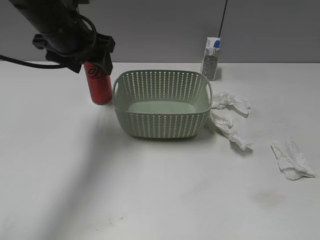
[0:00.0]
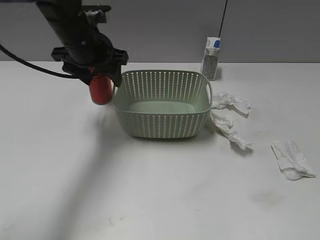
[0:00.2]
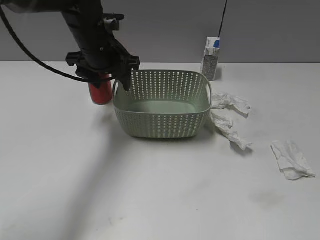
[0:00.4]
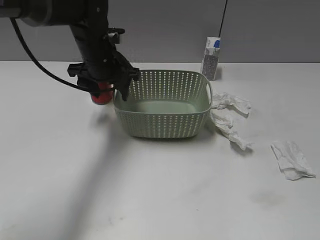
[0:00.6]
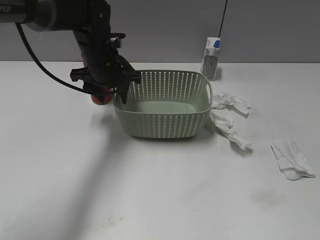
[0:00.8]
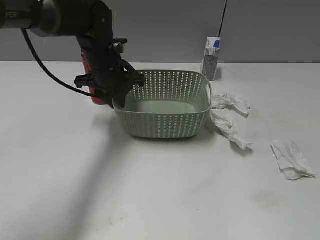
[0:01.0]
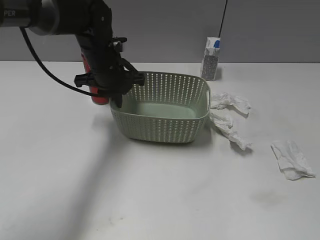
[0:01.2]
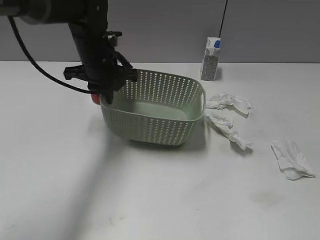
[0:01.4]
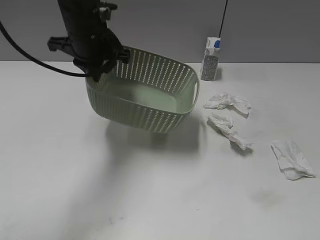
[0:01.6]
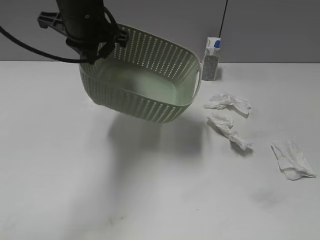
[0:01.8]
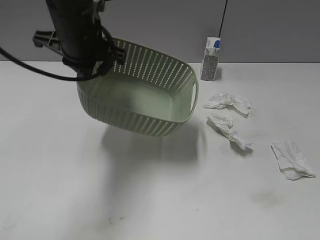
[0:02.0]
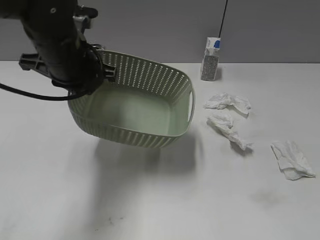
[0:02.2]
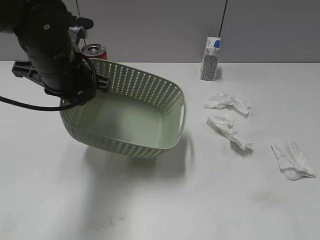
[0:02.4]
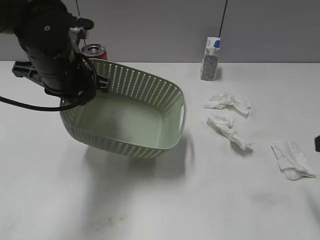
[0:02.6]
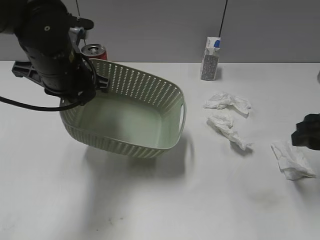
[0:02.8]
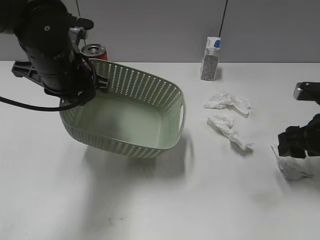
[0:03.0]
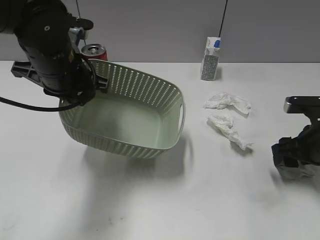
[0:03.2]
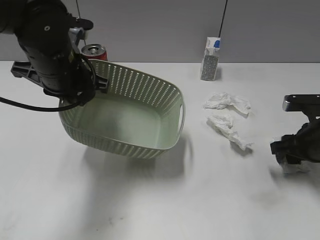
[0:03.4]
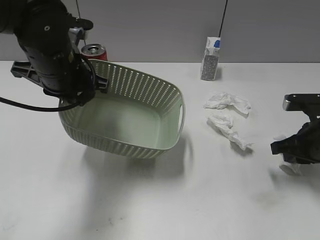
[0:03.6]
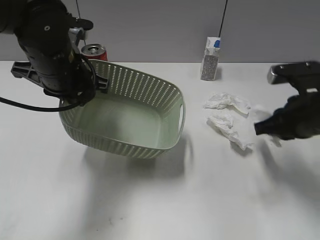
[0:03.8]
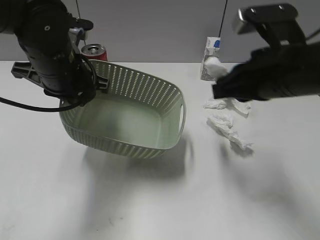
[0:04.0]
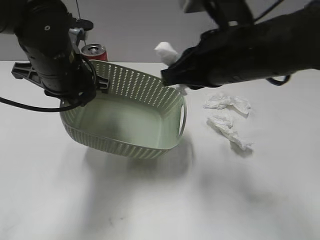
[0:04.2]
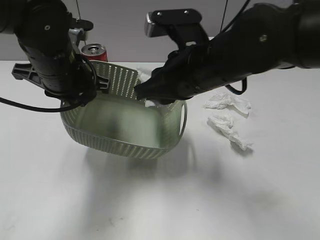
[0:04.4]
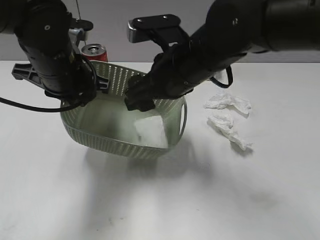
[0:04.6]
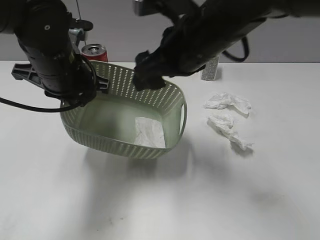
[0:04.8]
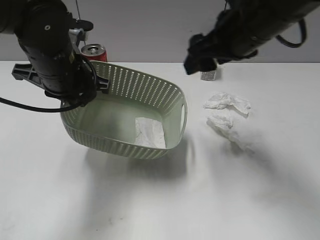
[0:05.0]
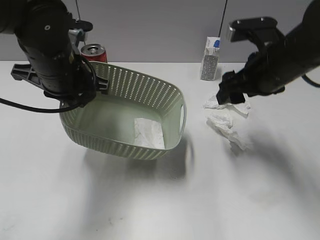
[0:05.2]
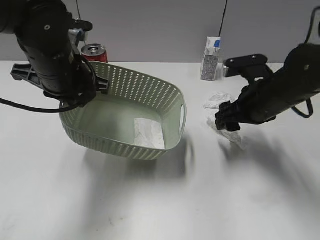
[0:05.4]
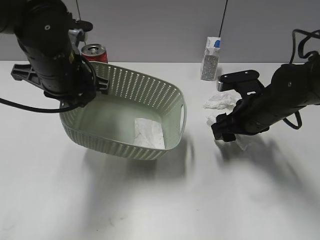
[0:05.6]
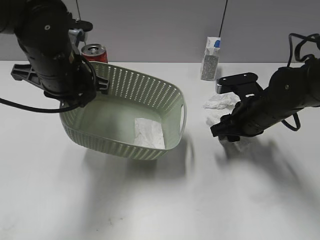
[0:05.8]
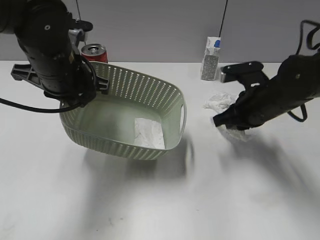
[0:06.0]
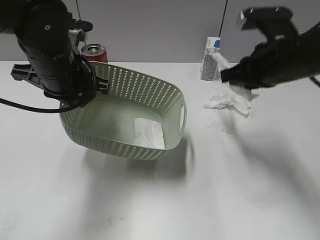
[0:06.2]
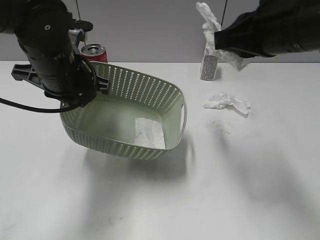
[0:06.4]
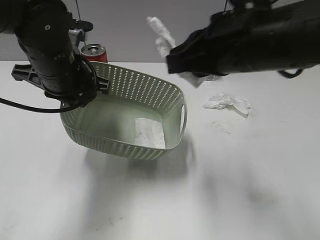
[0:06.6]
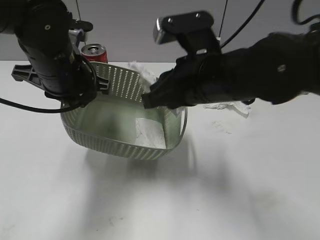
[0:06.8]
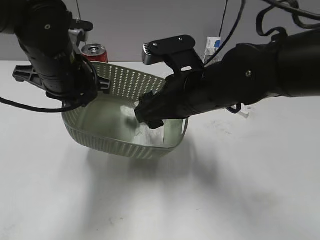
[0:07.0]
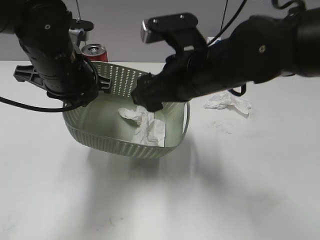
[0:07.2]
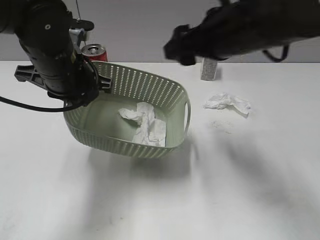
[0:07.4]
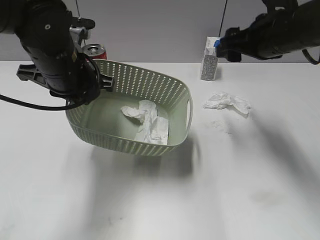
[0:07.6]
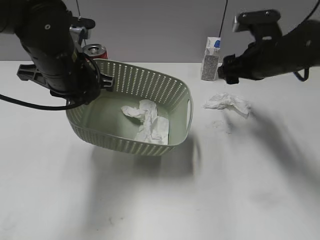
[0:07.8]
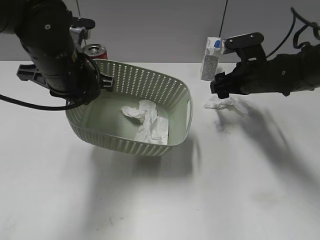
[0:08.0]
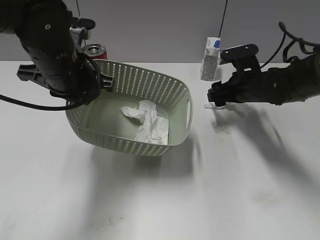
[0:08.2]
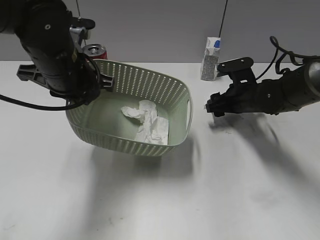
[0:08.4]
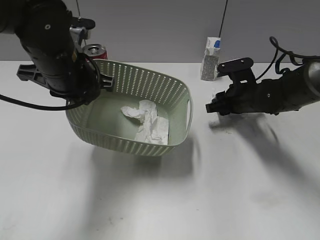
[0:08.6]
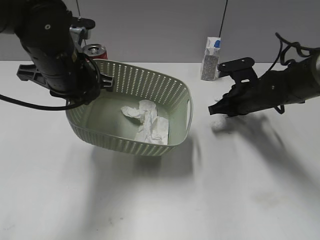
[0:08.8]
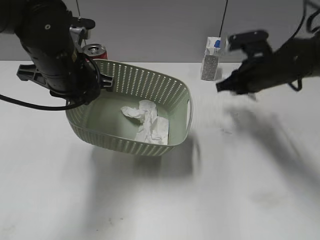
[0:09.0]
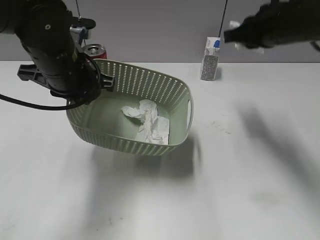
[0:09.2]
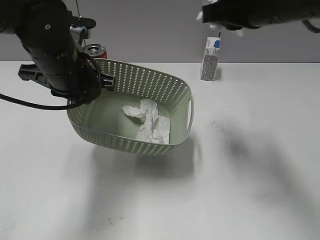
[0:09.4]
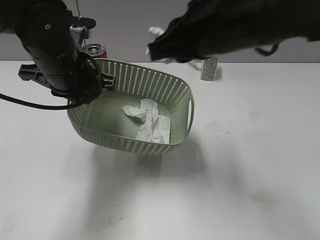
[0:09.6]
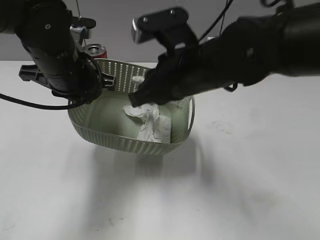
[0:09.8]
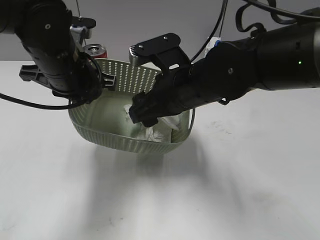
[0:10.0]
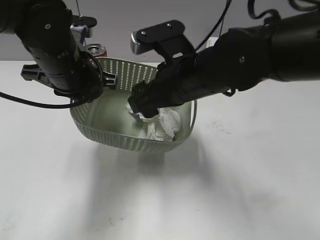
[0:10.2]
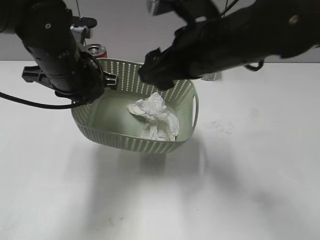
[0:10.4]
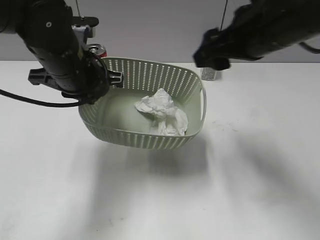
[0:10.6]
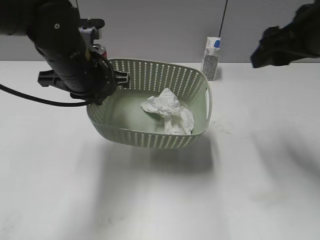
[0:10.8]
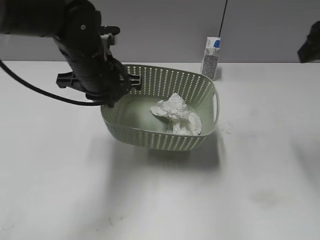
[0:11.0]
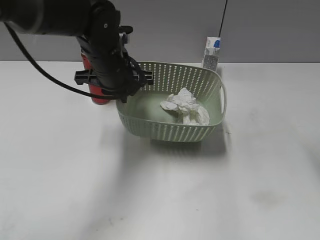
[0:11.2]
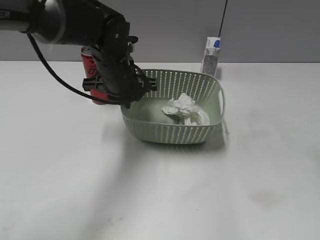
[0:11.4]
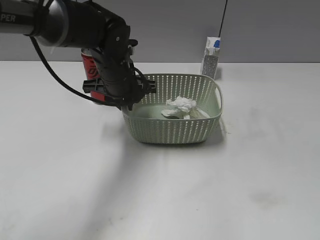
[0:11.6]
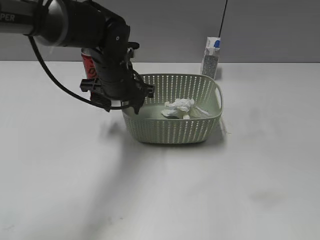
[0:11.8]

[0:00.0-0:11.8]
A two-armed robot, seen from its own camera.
Step, 0:01.4 to 0:02.4: Lift the basket with left gripper.
Step, 0:02.6 to 0:03.6: Grasp the waste paper with right gripper.
Step, 0:03.8 to 0:04.8: Place the waste paper in the basket with right gripper.
Step, 0:05.0 to 0:06.0: Grasp the waste paper with right gripper.
Step, 0:06.2 to 0:07.2: Place the waste paper in the basket with right gripper.
Step, 0:07.4 to 0:08.8: Grasp the waste paper with right gripper.
Step, 0:09.0 to 0:10.4: Place the waste paper in the basket with right gripper.
0:00.0 to 0:01.4: The left gripper moves downward, some 5 cm, and closes its fingers.
0:01.4 to 0:03.0: The right gripper travels forward and downward by approximately 30 cm; the left gripper moves backward, roughly 10 cm.
0:03.0 to 0:04.4: The right gripper moves to the left, some 25 cm, and closes up.
0:04.4 to 0:06.0: The right gripper shifts some 15 cm to the right and downward, and opens, then closes once more.
0:06.0 to 0:07.4: The right gripper swings up and down, about 15 cm each way, with 2 reversals, and opens.
0:07.4 to 0:08.8: The right gripper shifts some 20 cm downward, forward and to the right, and closes up.
0:08.8 to 0:10.4: The right gripper moves up and down over roughly 20 cm, changing direction 2 times, and opens up.
0:10.4 to 0:11.8: The right gripper heads to the right, upward and backward, covering approximately 25 cm. The left gripper heads forward, downward and to the right, covering roughly 10 cm, and opens up.

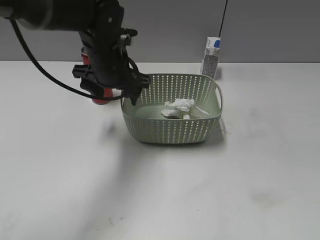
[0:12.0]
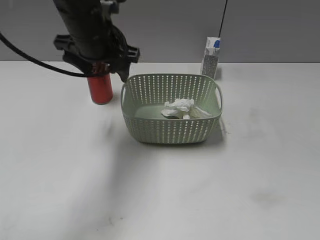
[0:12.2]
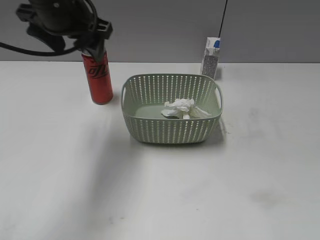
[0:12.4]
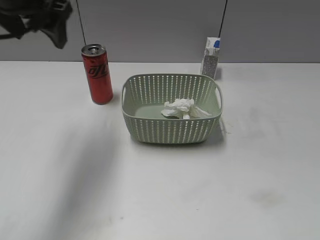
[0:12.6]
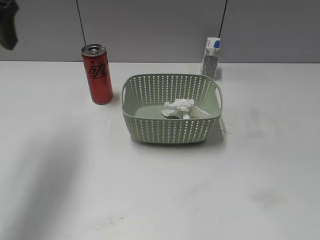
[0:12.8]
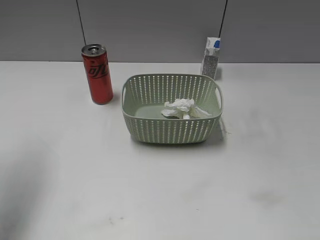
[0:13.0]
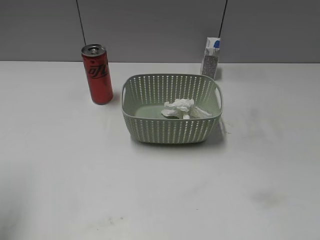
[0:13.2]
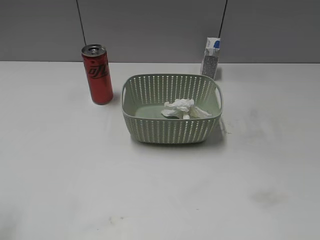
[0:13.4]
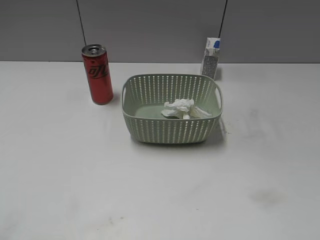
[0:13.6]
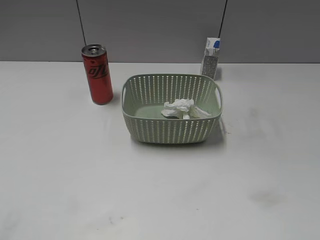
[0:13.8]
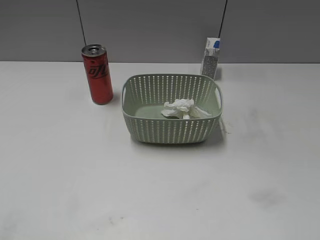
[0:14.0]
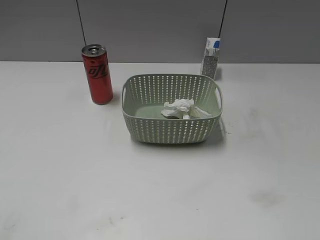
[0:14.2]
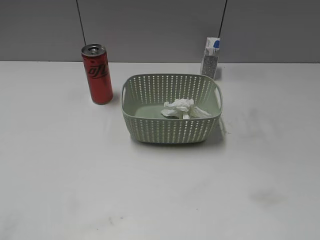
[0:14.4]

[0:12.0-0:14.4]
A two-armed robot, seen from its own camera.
0:12.0 to 0:13.2: The right gripper moves downward and backward, about 20 cm. Meanwhile the left gripper heads to the left, backward and upward, covering some 30 cm.
0:13.2 to 0:14.4: The left gripper is displaced backward by about 20 cm.

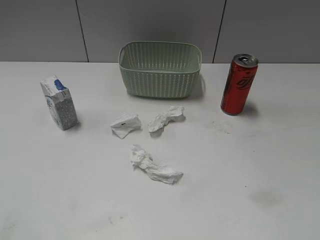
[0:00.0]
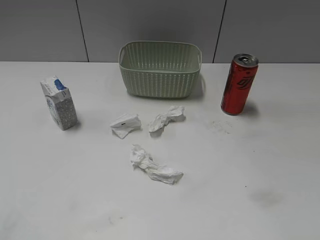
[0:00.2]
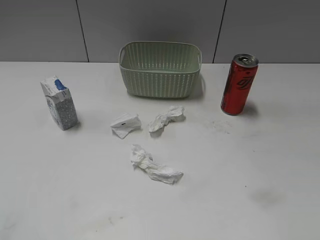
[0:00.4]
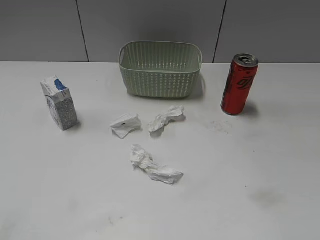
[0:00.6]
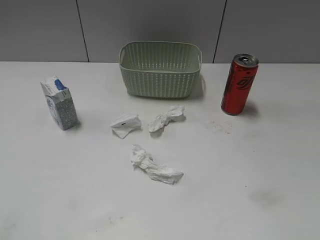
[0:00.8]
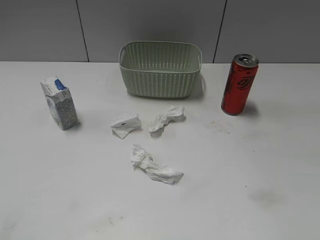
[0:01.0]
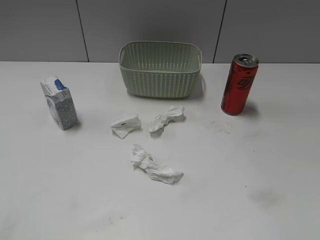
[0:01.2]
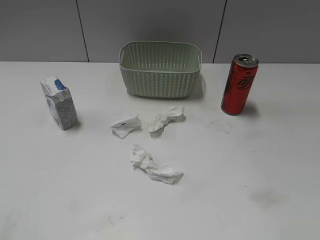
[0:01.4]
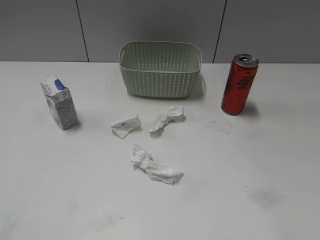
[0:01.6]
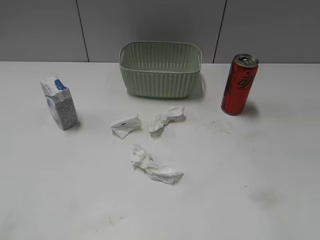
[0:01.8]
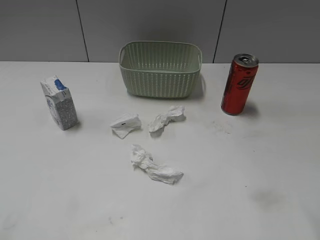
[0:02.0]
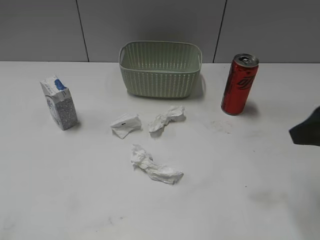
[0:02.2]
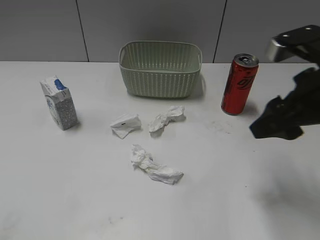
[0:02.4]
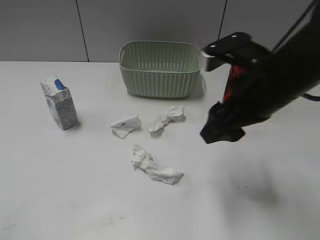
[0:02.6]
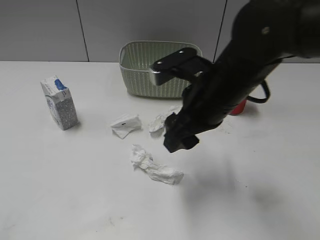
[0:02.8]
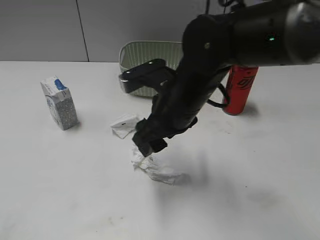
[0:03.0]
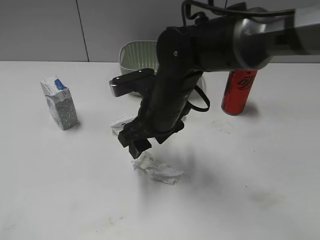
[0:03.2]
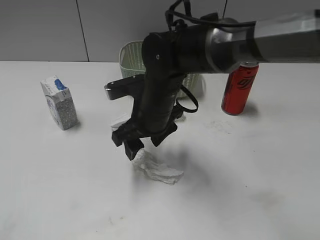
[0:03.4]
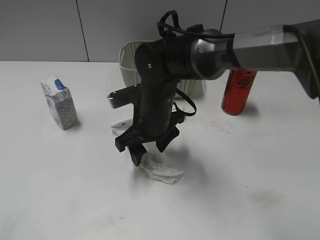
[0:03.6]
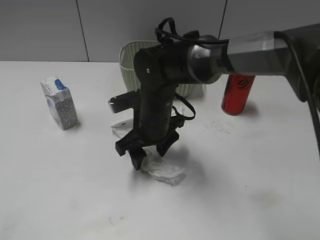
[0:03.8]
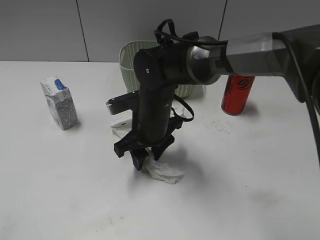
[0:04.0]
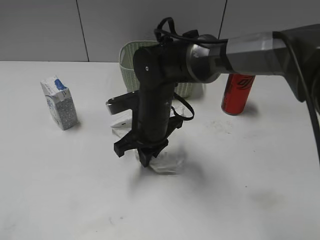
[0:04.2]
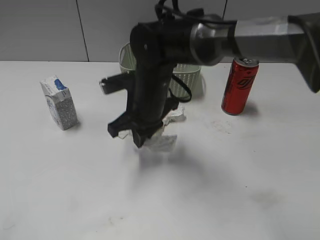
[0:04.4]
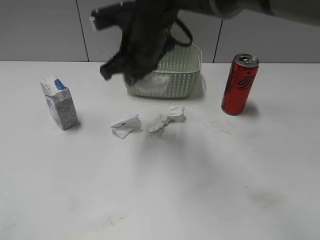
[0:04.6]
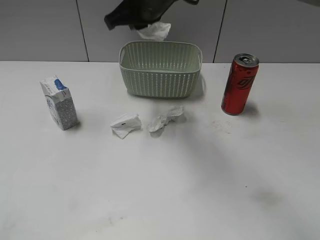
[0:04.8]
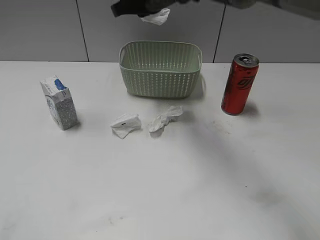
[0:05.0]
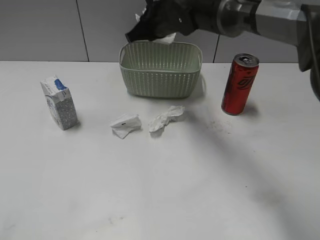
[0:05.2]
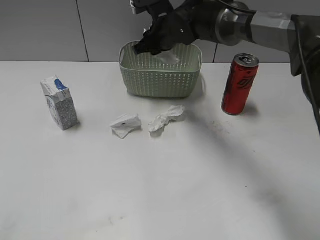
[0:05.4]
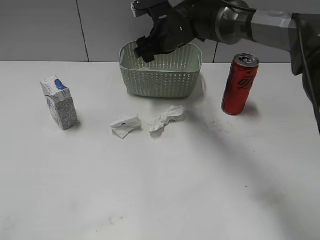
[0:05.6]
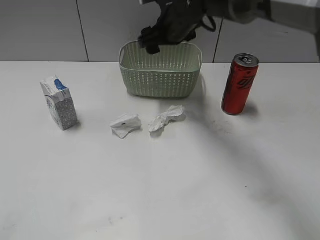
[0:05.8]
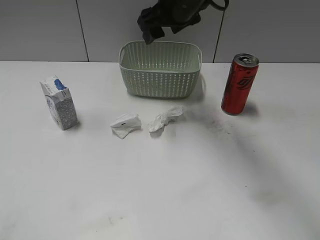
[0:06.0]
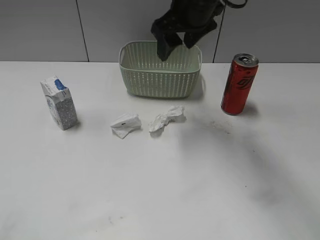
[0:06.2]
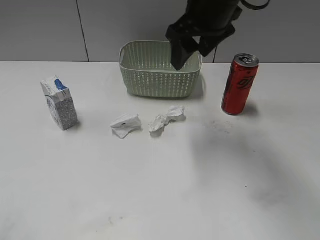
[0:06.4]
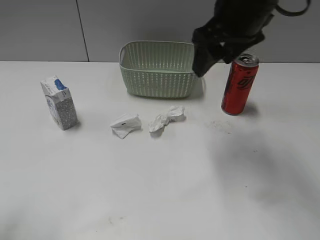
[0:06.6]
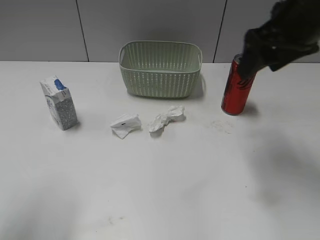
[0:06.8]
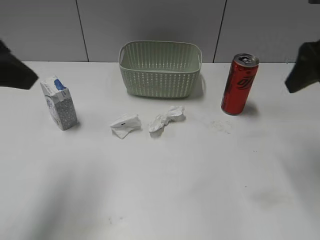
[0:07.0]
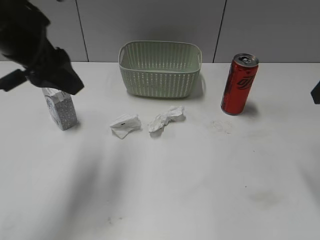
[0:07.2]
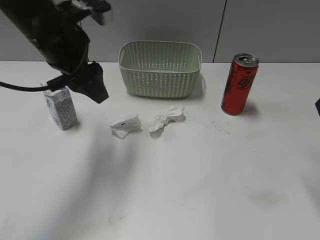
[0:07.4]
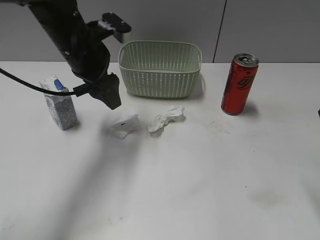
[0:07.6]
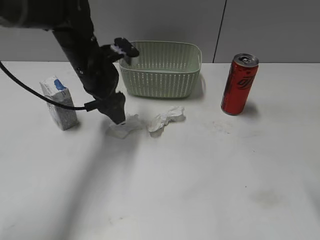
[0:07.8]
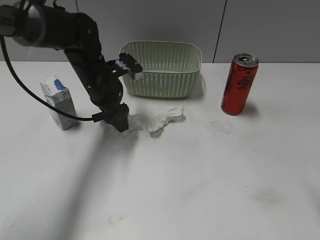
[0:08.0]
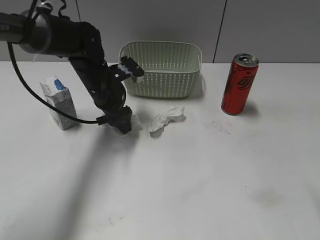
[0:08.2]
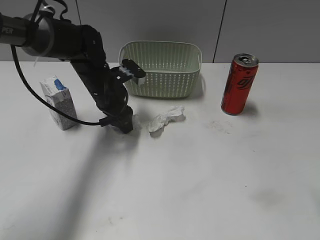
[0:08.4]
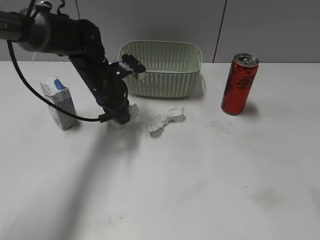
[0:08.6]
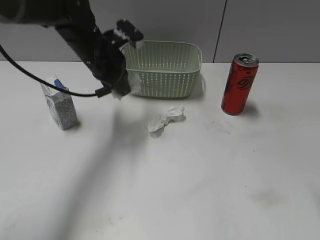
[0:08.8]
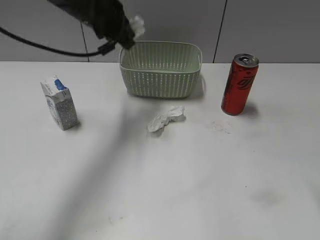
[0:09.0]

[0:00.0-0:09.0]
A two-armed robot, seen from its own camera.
Step, 0:02.2 to 0:04.2: Grasp the waste paper with right gripper.
Step, 0:04.4 to 0:05.6: Place the waste paper in the basket with right gripper.
Step, 0:05.8 to 0:08.6: Grasp the waste paper with left gripper.
0:01.6 to 0:03.0: The left gripper opens up. Meanwhile the right gripper travels to the left and forward by approximately 35 cm.
0:03.0 to 0:04.4: The right gripper shifts about 5 cm to the left, and closes up.
0:04.4 to 0:06.0: The right gripper heads upward, forward and to the right, covering about 15 cm, and opens.
0:06.0 to 0:07.6: The right gripper shifts some 30 cm to the right and backward. The left gripper shifts roughly 40 cm forward and to the right.
0:07.6 to 0:09.0: The left gripper reaches some 10 cm downward, then returns, and closes up.
